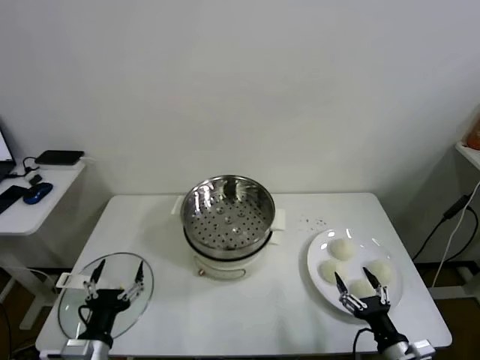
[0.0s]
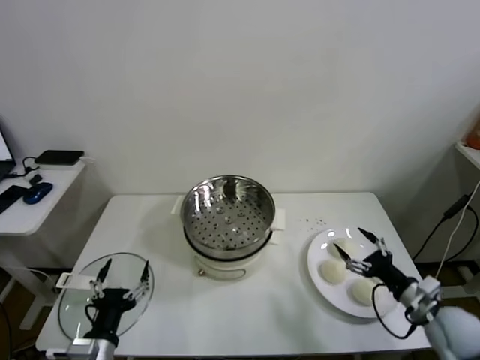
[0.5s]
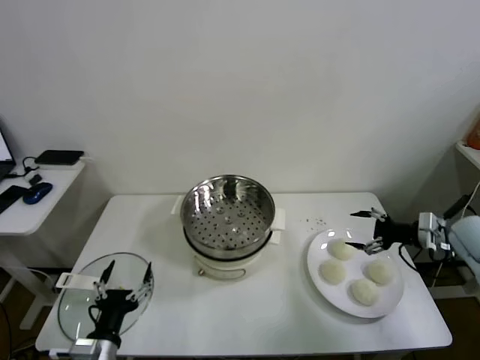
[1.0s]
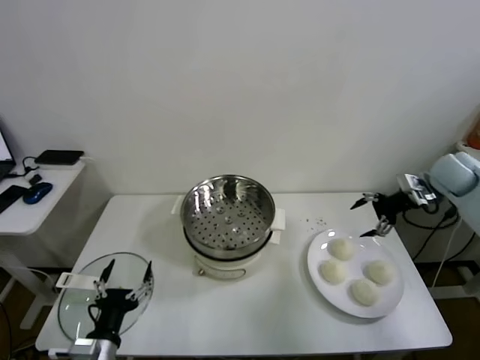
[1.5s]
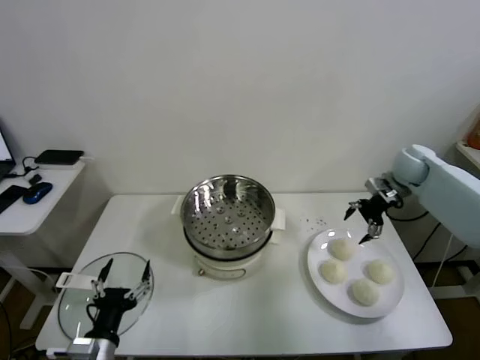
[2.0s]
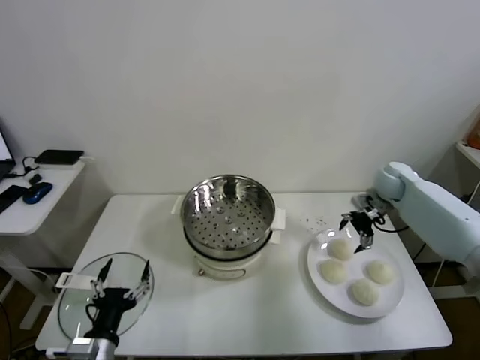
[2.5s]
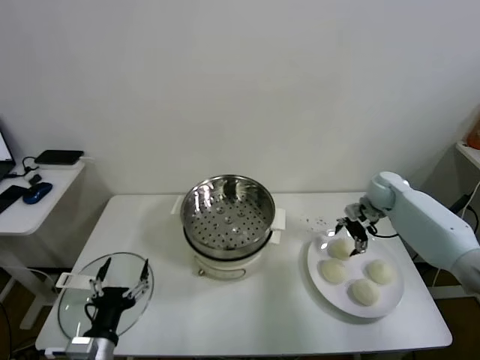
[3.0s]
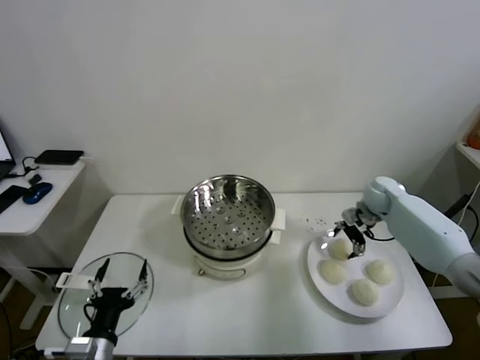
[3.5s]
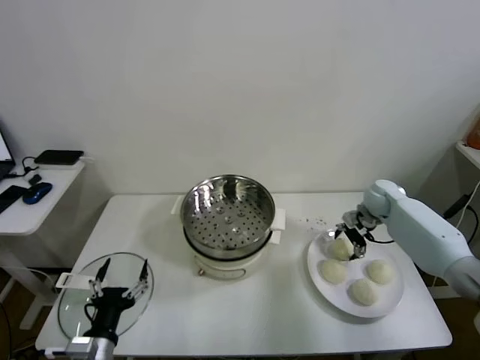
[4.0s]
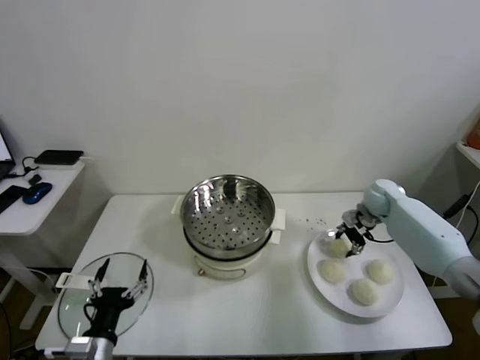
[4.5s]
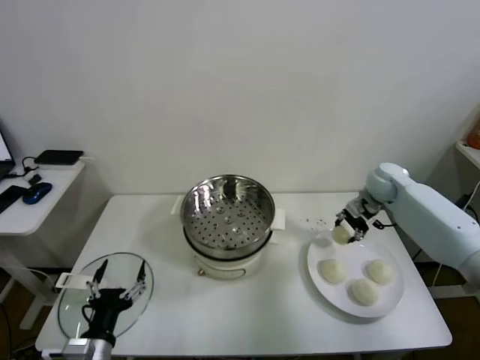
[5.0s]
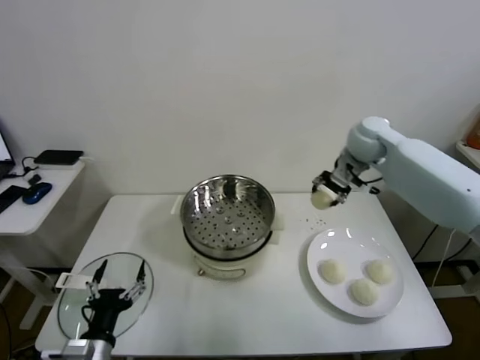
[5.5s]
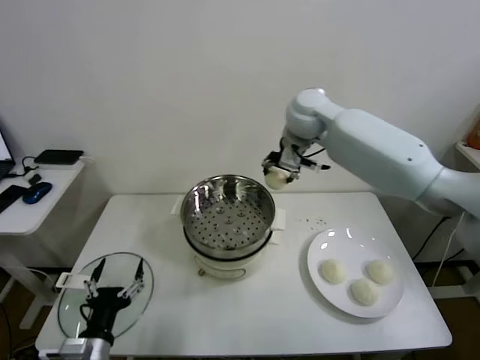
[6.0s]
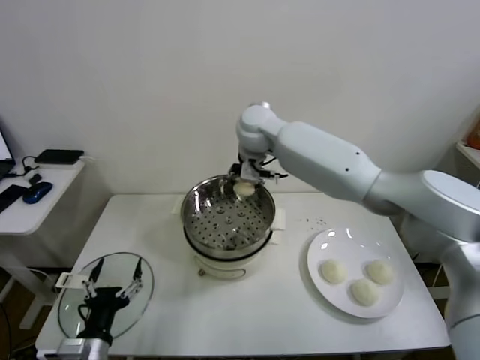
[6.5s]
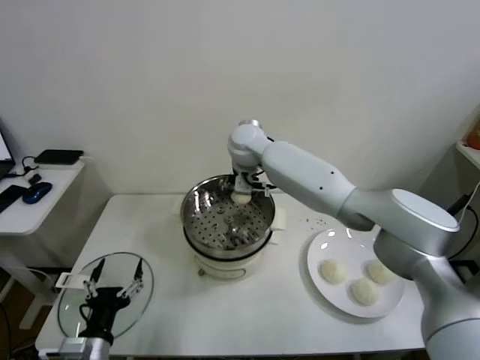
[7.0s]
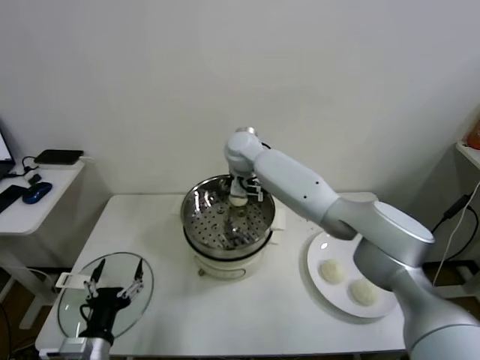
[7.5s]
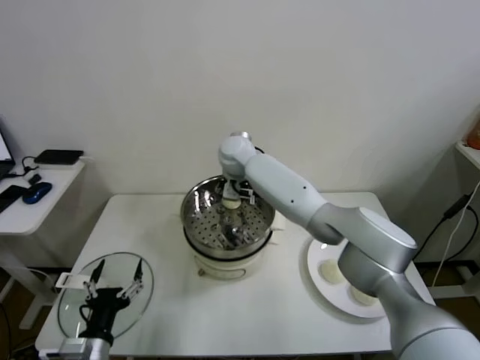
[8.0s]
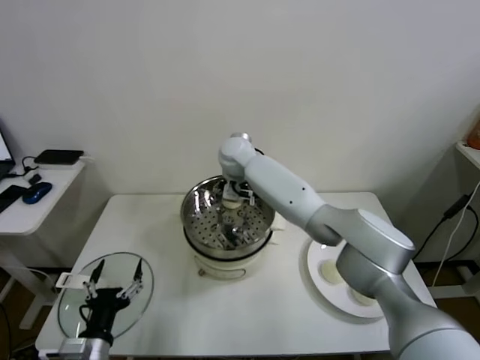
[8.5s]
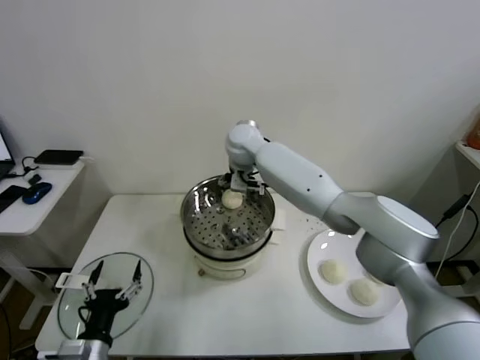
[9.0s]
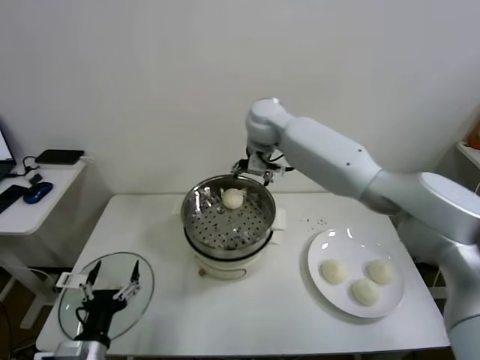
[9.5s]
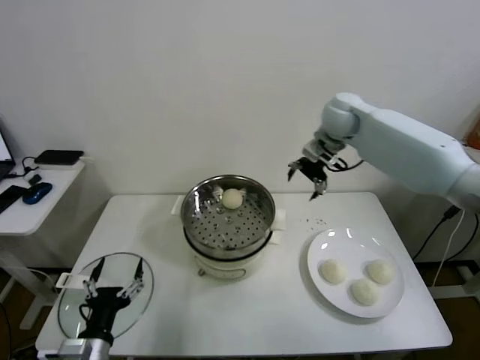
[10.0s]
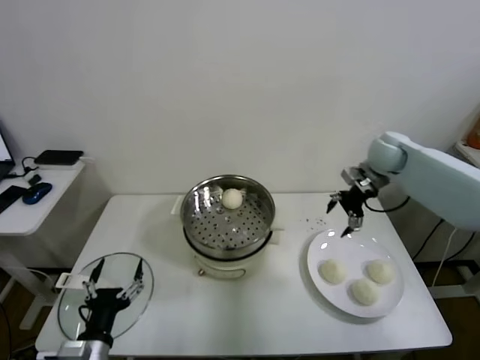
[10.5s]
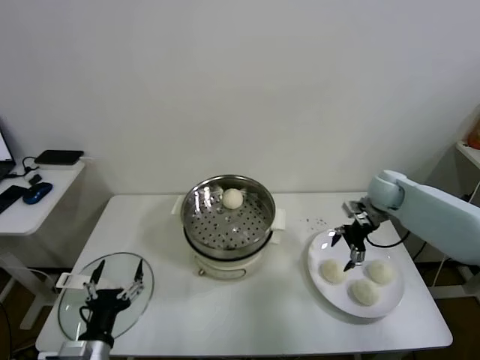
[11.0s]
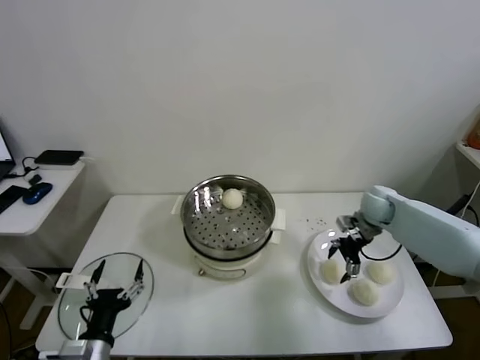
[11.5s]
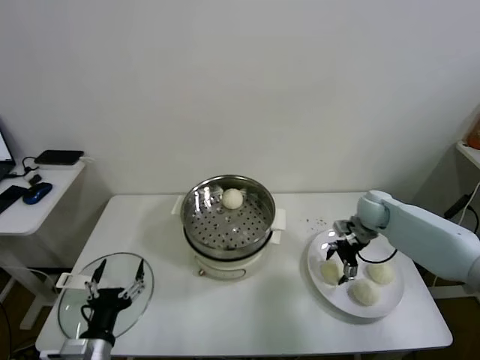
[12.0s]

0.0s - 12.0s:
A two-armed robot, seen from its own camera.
Task of the whole recording: take steamed baozi put them in steamer.
Step, 0.0s - 4.0s: Grasp the baozi in the plate with right gripper.
Step, 4.5s - 8.5s: Place the baozi on the steamer with right gripper.
2.0s - 4.0s: The right gripper travels downward by about 10 cm, and closes its fingers.
4.0s - 6.0s: The right gripper is displaced to the left and upward by about 40 cm.
6.0s - 8.0s: The right gripper shifts roughly 20 cm downward and to the left.
8.0s - 10.0s: The right gripper shifts about 30 cm to the right, and opens.
10.0s - 12.0s: The right gripper travels downward by approximately 25 cm.

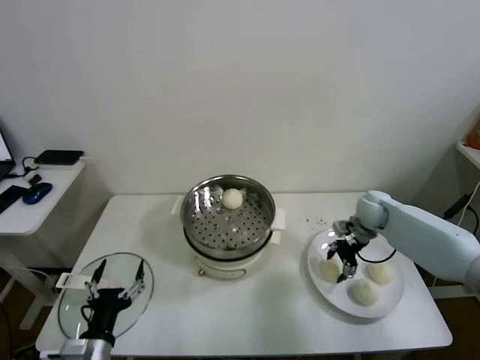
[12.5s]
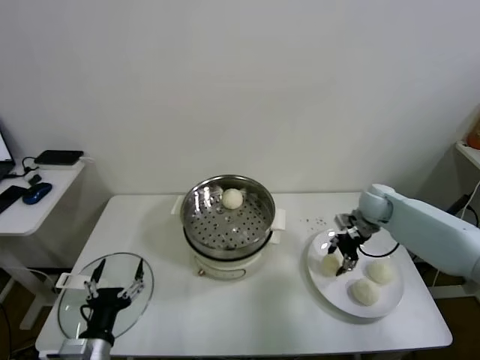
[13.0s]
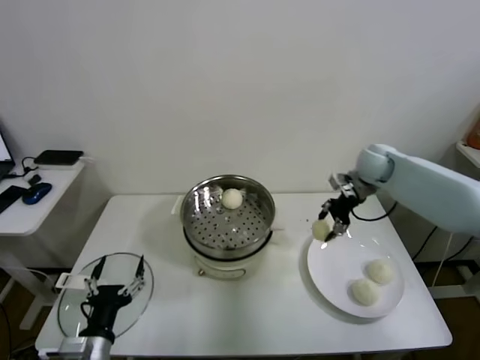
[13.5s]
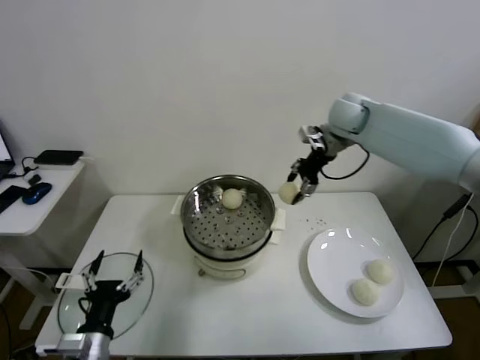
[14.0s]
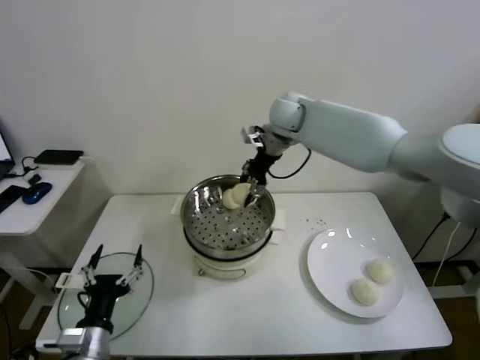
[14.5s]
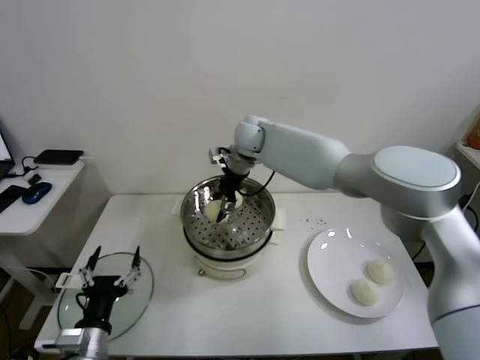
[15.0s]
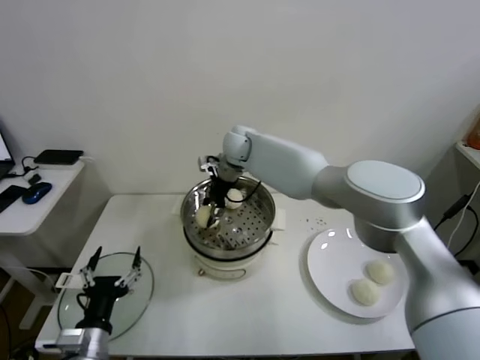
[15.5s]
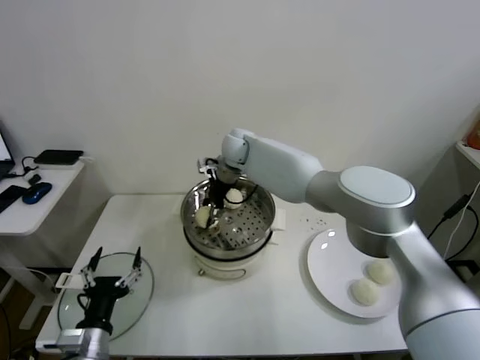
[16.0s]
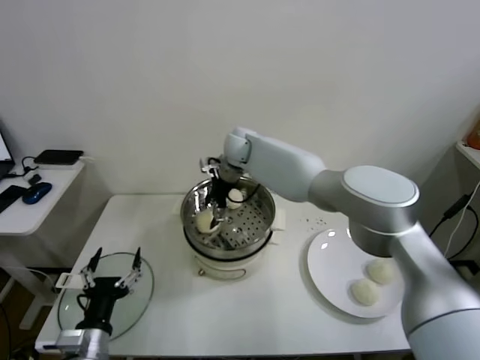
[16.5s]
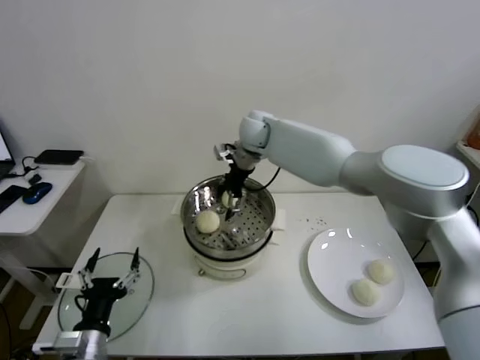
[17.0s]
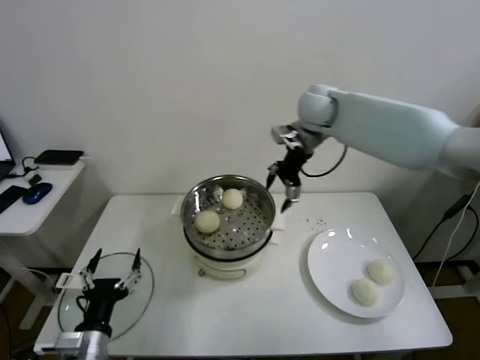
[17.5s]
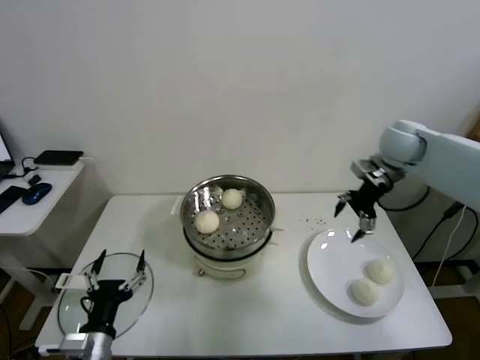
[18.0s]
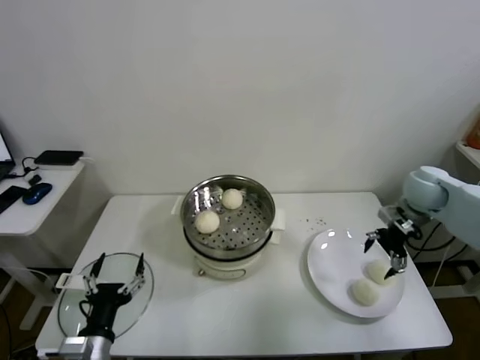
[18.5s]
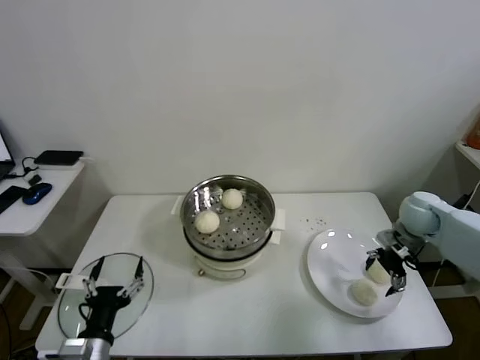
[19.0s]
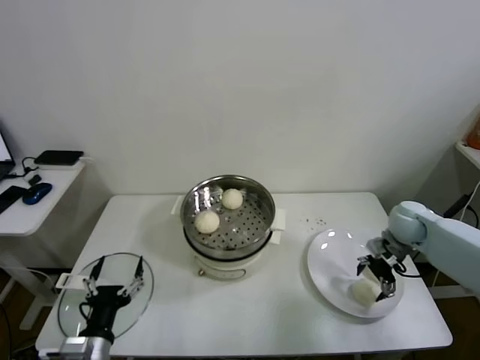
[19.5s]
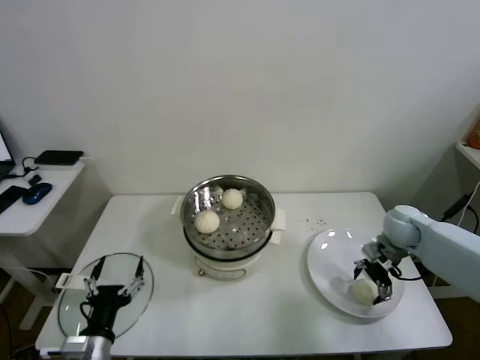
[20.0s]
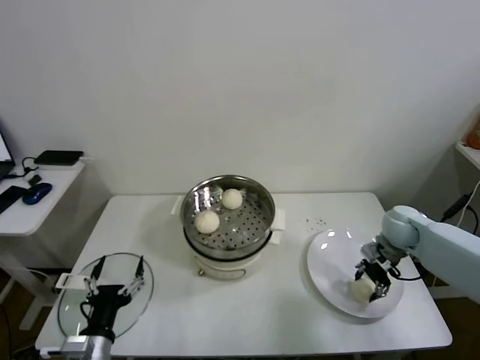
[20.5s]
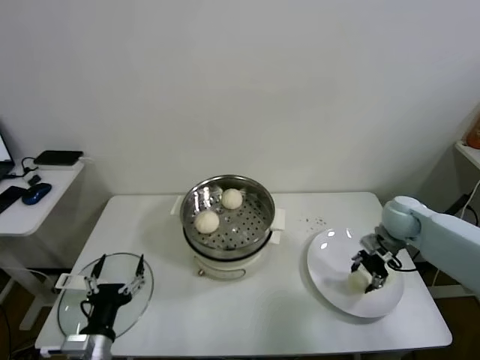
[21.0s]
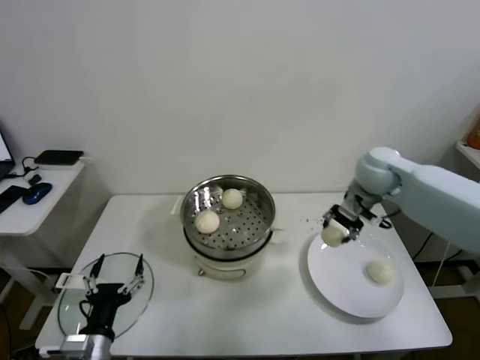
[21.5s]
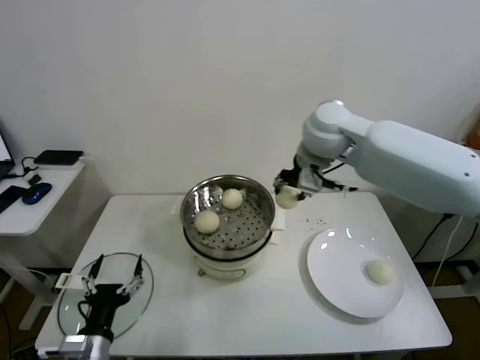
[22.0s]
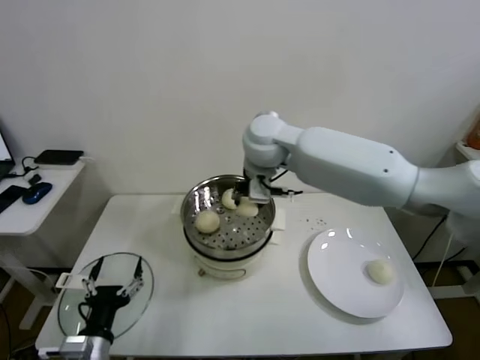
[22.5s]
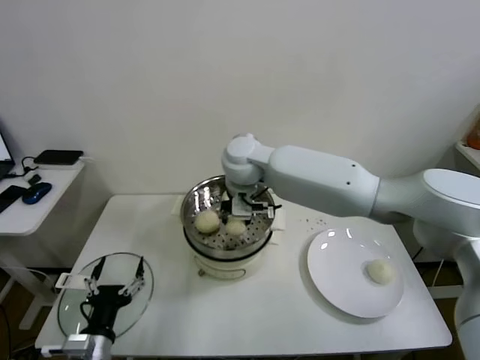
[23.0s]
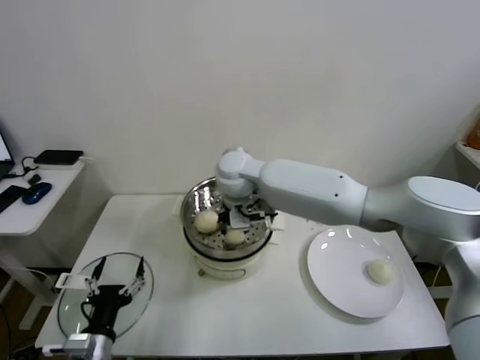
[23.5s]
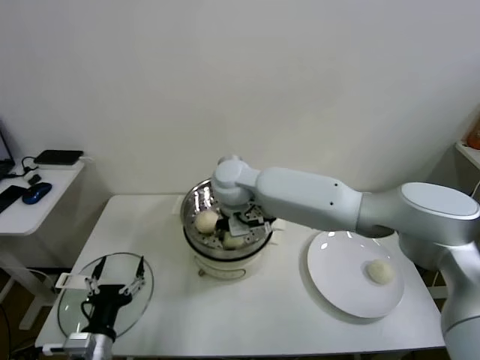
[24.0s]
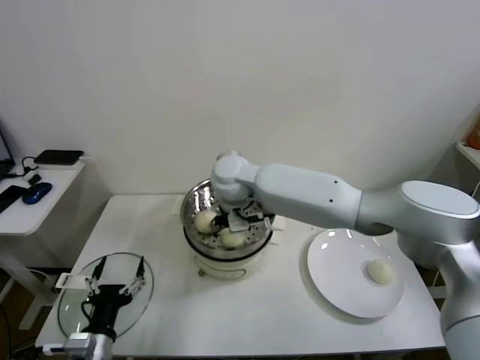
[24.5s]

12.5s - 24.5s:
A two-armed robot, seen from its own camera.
Task of the whole recording: take steamed baozi put them in steamer.
Step, 13.0s - 16.5s: Place the baozi on the steamer with right gripper.
Step, 17.0s - 20.0s: Grasp the baozi in the plate with right gripper.
Step, 20.5s - 24.5s: Place the baozi on the steamer with right gripper.
12.5s - 14.5s: The right gripper travels to the left and upward by some 35 cm.
14.5s - 16.5s: The right gripper travels to the left and downward by about 15 cm, and opens its fingers.
16.5s - 18.5s: The right gripper travels to the right by approximately 40 cm.
18.5s - 20.5s: The right gripper moves downward, about 10 cm, and closes.
20.5s - 22.5s: The right gripper goes about 40 cm to the left and upward.
22.5s - 24.5s: The right gripper is displaced downward and to the left by some 10 cm, and opens.

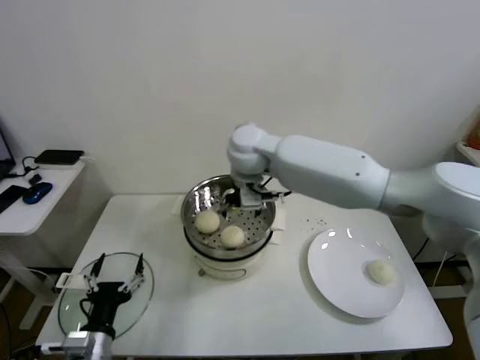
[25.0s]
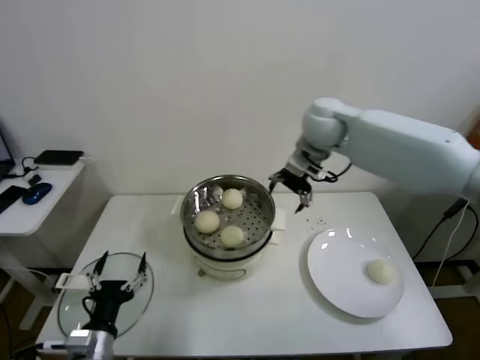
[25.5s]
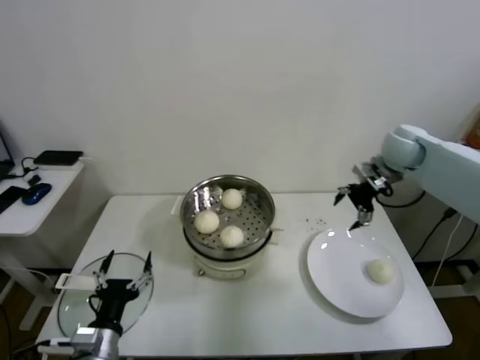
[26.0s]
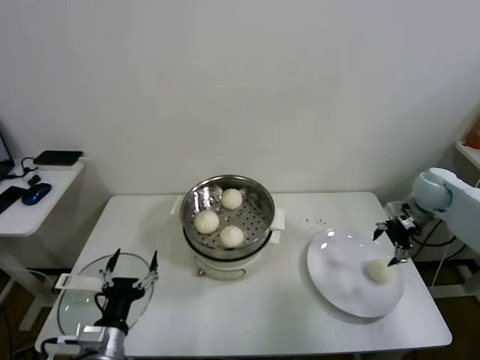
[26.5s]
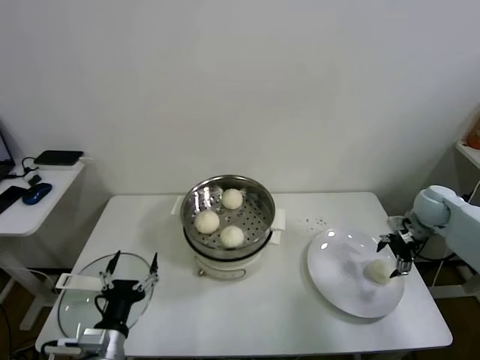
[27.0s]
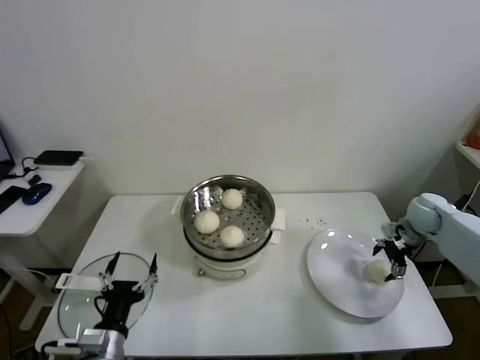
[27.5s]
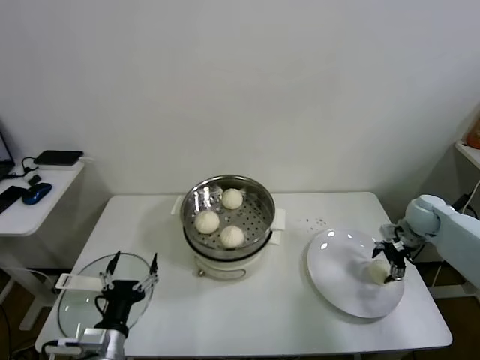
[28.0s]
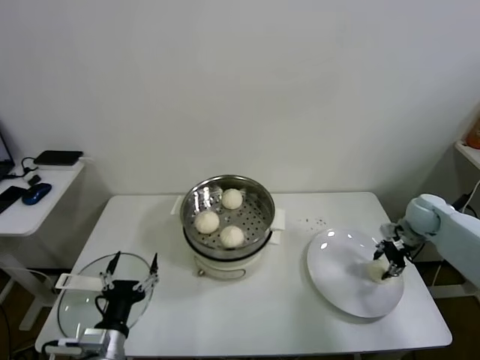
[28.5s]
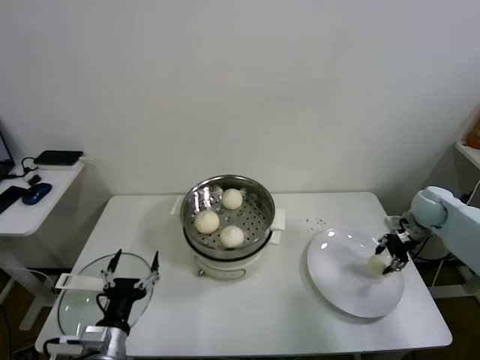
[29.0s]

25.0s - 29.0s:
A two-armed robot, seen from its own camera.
Task of the whole recording: take steamed baozi put them in steamer.
Step, 25.0s - 28.0s: Grasp the baozi in the plate with right gripper.
25.0s - 27.0s: The right gripper travels to the right by some 50 cm.
27.0s - 29.0s: The right gripper closes.
